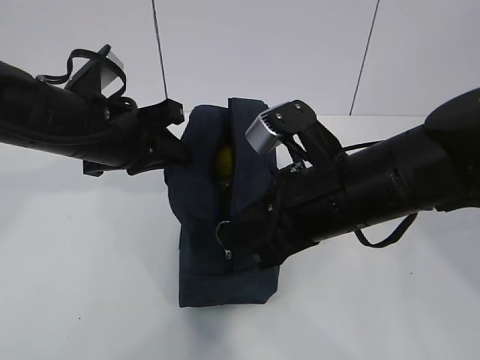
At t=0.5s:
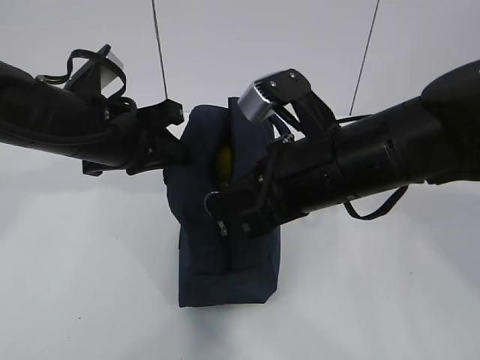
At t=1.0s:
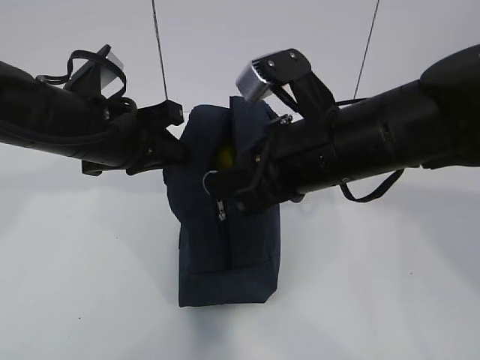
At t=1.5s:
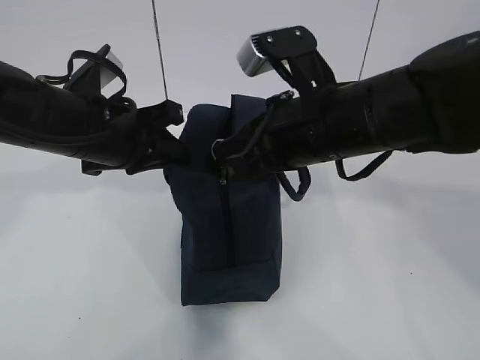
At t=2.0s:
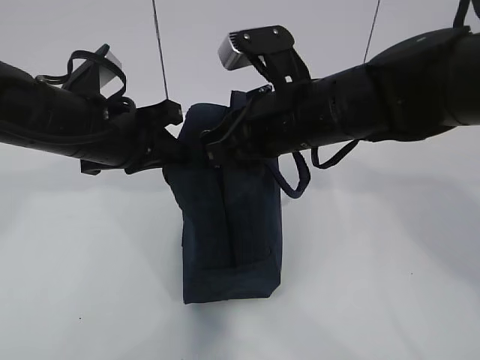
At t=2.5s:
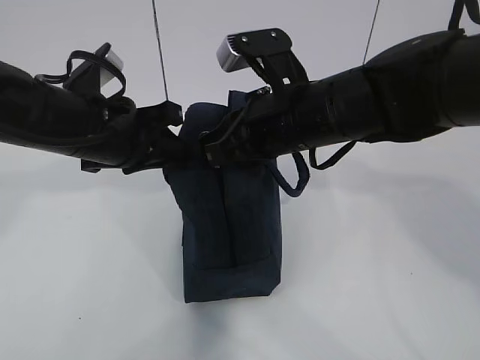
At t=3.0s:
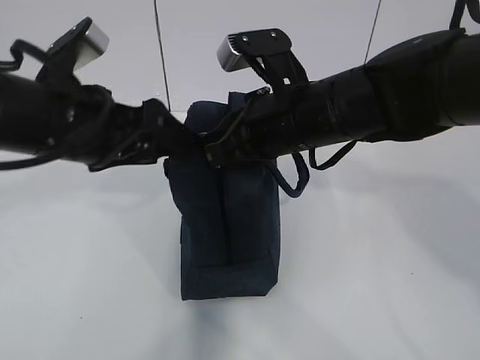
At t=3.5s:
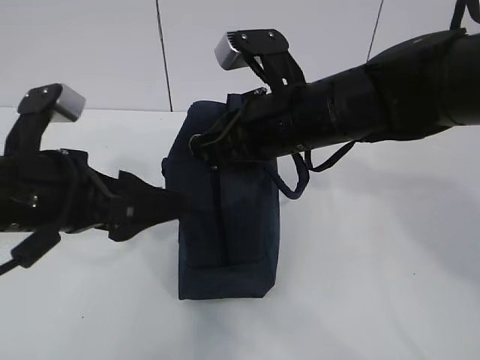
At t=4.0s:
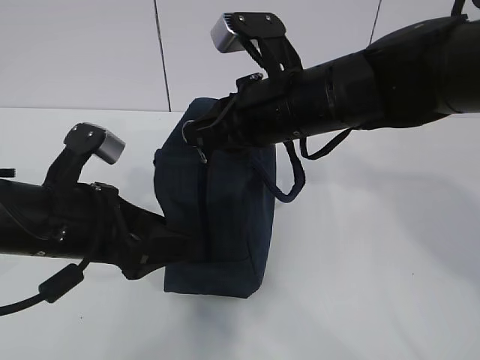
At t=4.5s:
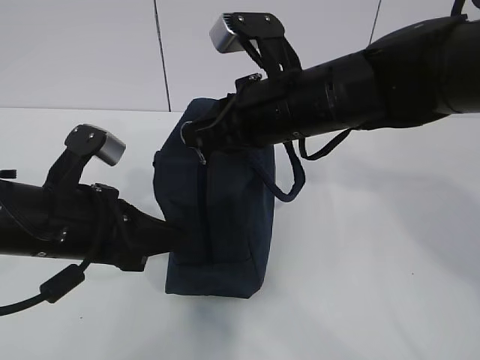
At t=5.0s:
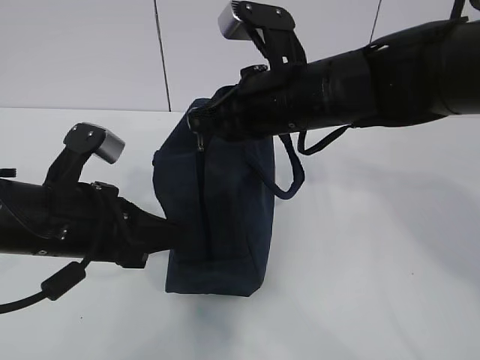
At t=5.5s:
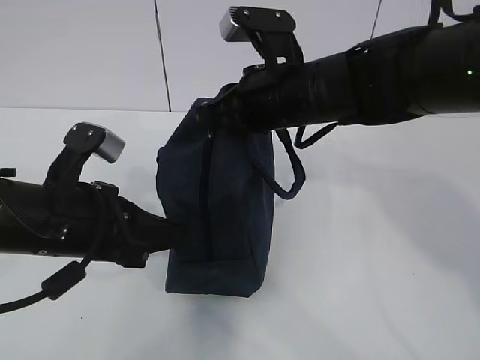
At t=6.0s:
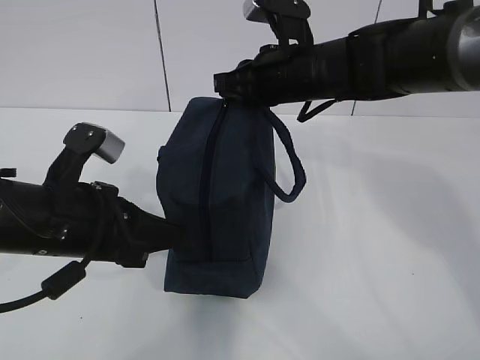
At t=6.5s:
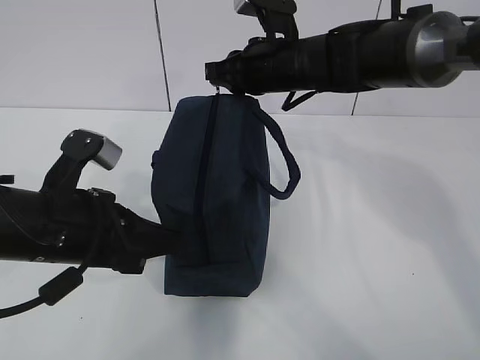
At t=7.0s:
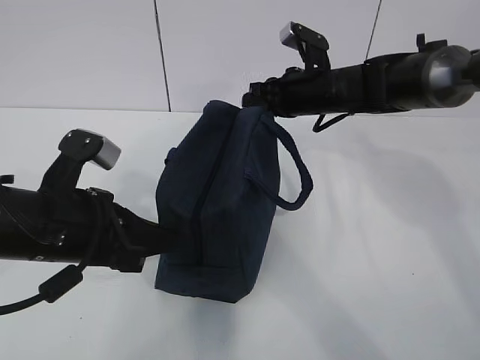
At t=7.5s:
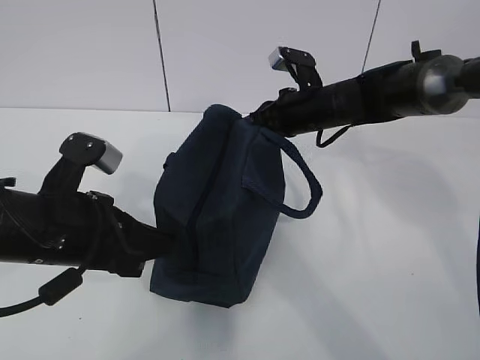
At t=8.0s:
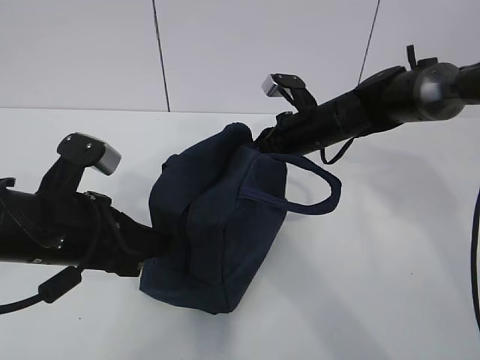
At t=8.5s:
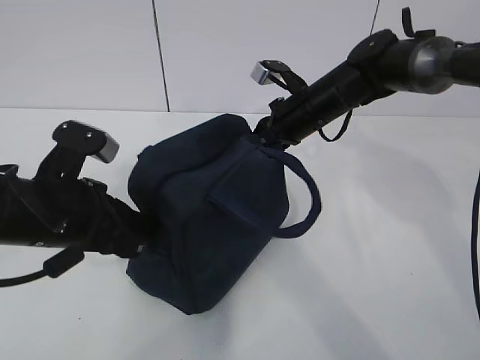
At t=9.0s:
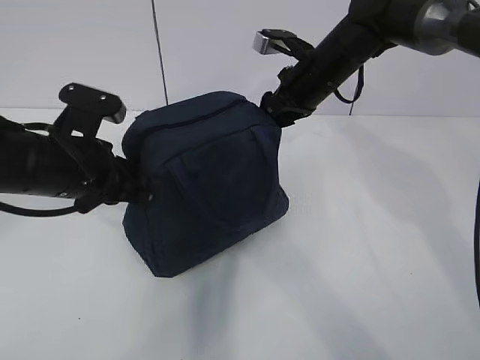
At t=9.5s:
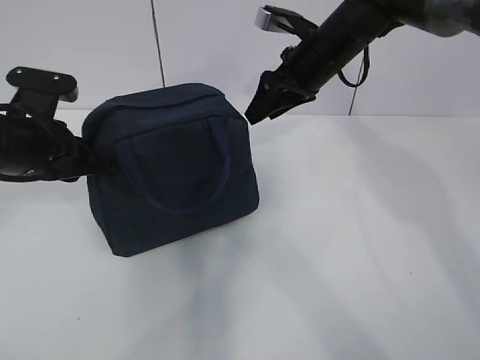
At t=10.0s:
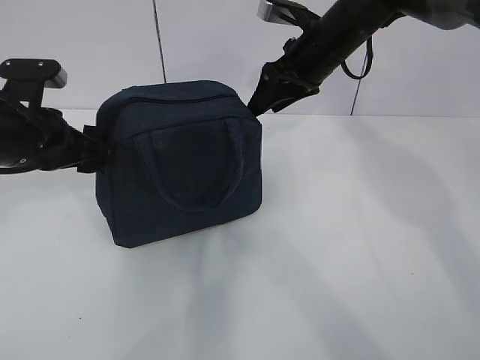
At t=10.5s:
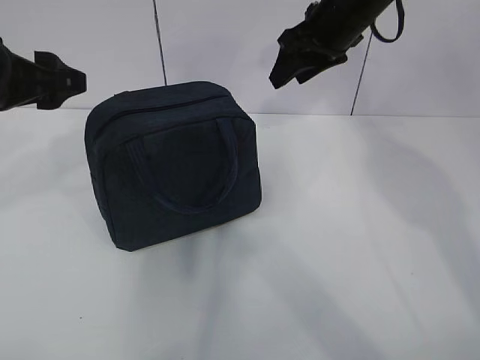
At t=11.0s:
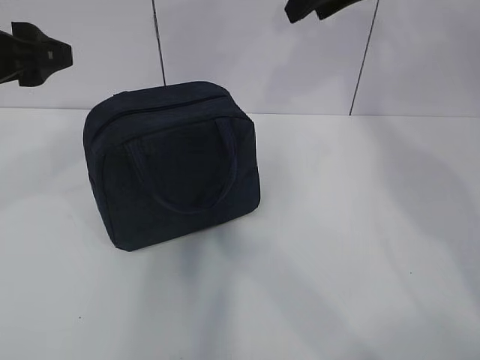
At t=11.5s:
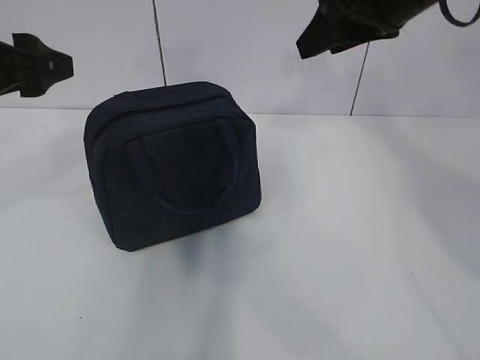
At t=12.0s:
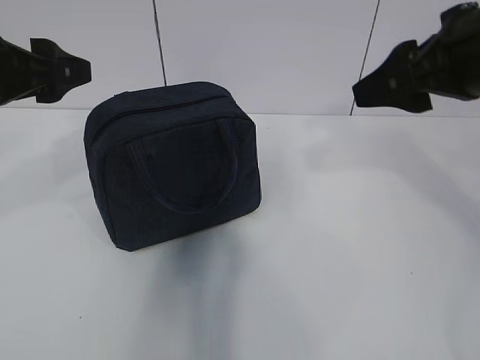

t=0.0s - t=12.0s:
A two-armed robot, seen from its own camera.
t=0.0s - t=2.0s: The right gripper is displaced forward by roughly 5 cm.
t=2.0s - t=4.0s: The left gripper is displaced backward by some 10 cm, and opens its fingers.
t=4.0s - t=6.0s: The right gripper shifts approximately 10 cm forward; the left gripper closes its fingers.
t=6.0s - t=8.0s: The right gripper heads downward and forward, covering approximately 10 cm.
t=8.0s - t=10.0s: The right gripper shifts some 10 cm upward, and opens up; the left gripper shifts some 10 cm forward and to the left, and opens.
t=10.0s - t=12.0s: The left gripper is displaced upward by approximately 10 cm. The right gripper heads backward and upward, covering roughly 20 cm.

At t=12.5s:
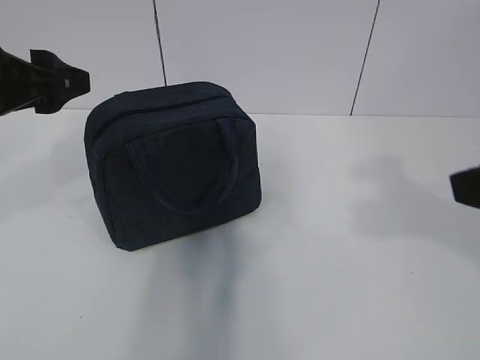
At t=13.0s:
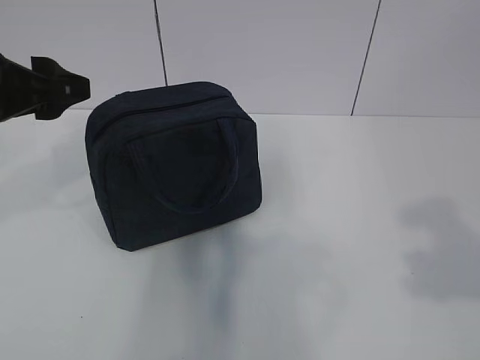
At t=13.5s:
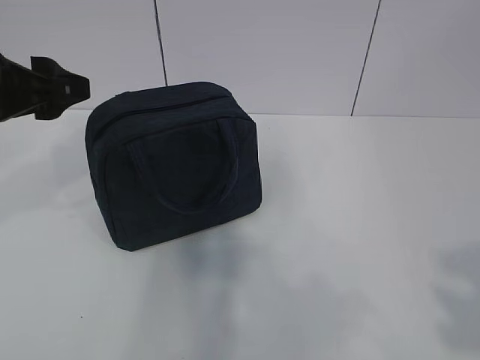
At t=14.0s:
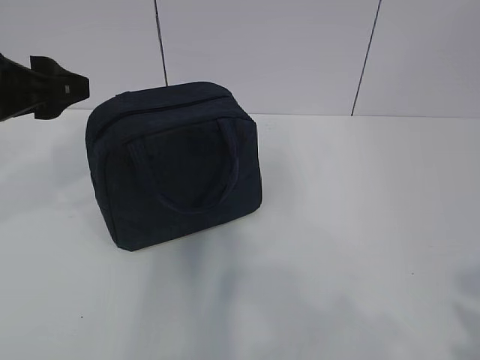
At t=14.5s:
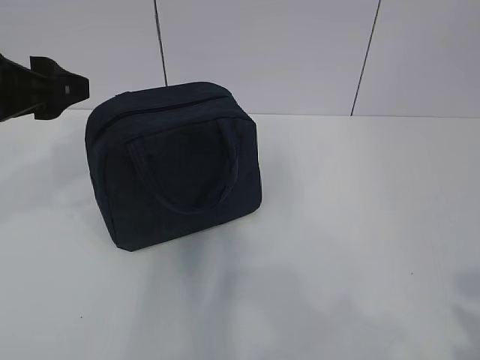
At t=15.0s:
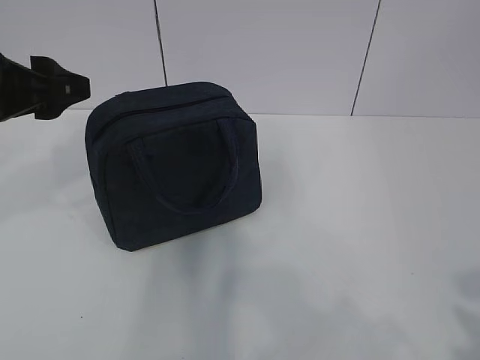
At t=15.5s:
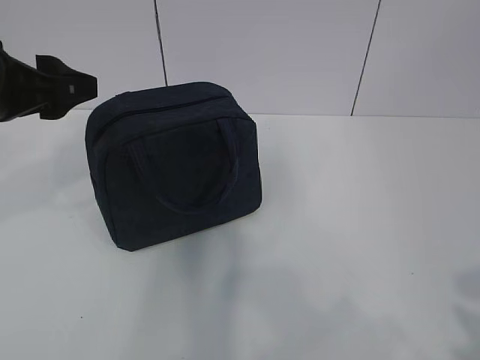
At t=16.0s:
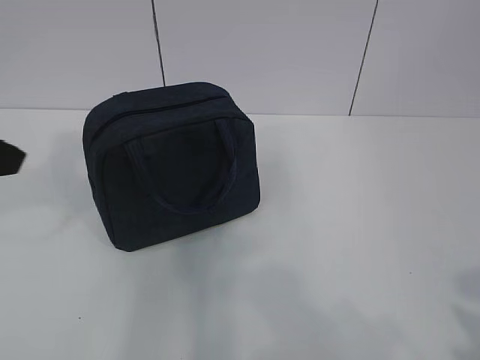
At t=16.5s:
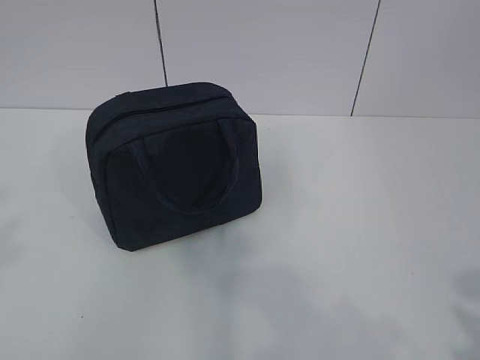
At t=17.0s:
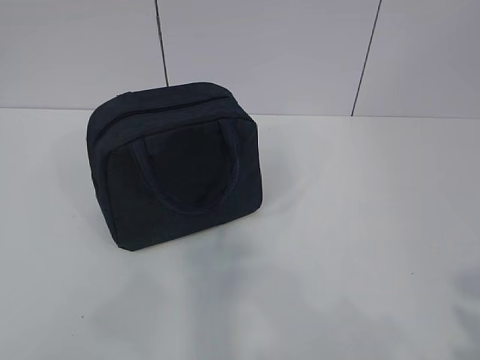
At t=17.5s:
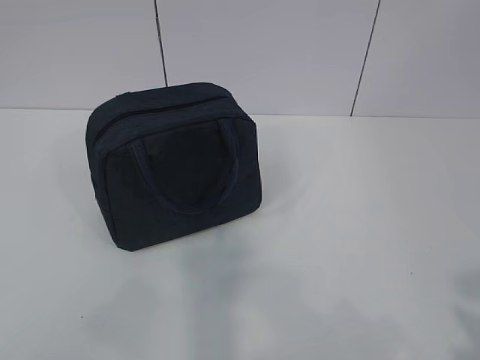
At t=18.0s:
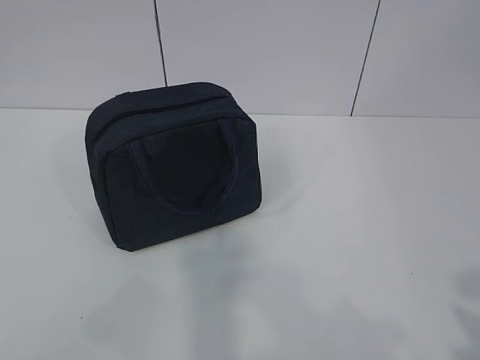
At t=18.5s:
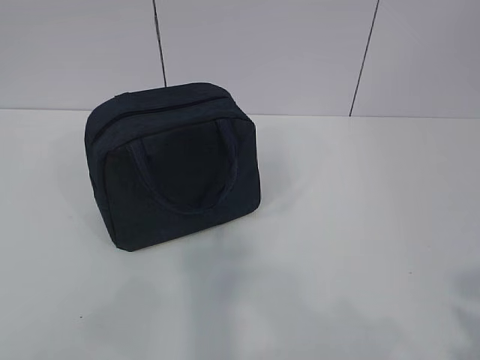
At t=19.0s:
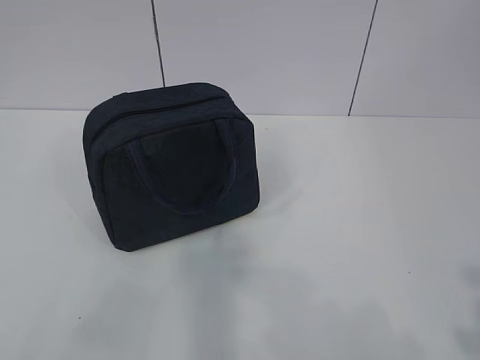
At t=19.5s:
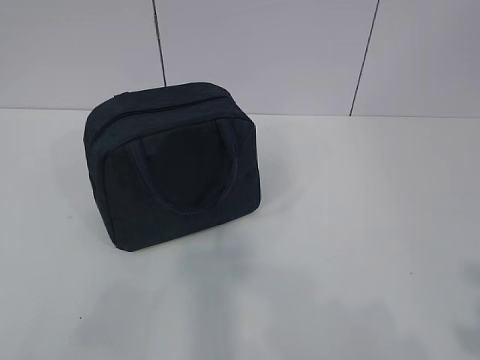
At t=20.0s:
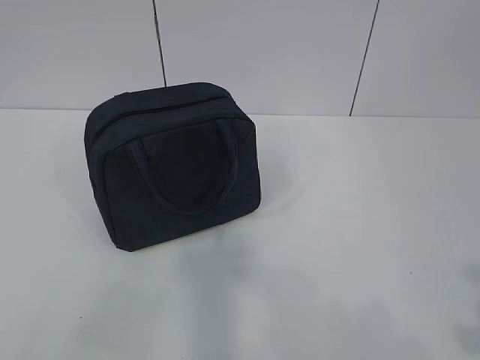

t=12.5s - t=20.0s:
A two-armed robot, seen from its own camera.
t=12.5s - t=14.5s: The right gripper heads backward, covering some 15 cm.
t=14.5s - t=16.5s: The left gripper moves backward and to the left, about 25 cm.

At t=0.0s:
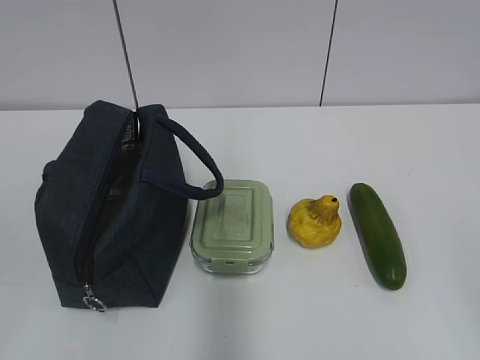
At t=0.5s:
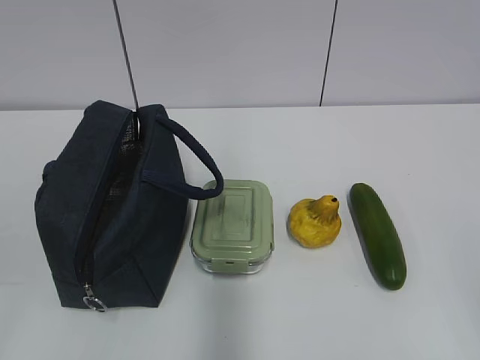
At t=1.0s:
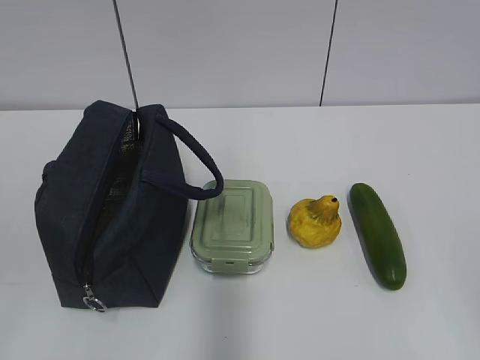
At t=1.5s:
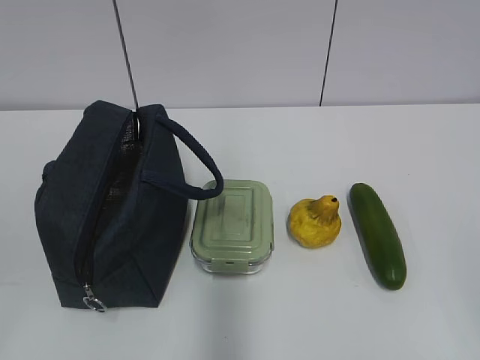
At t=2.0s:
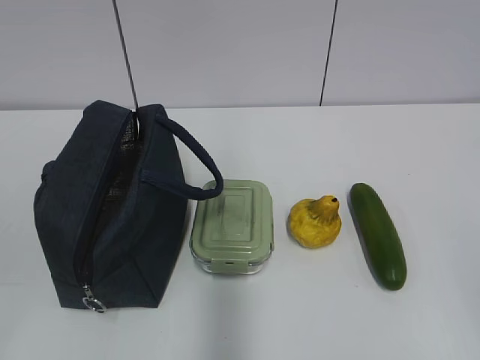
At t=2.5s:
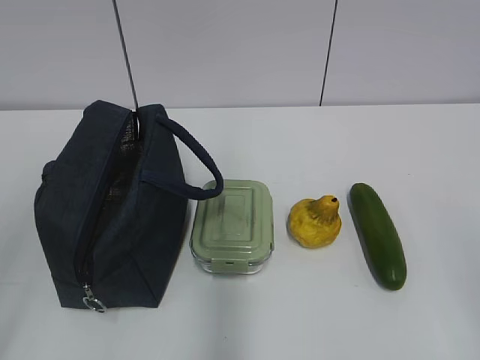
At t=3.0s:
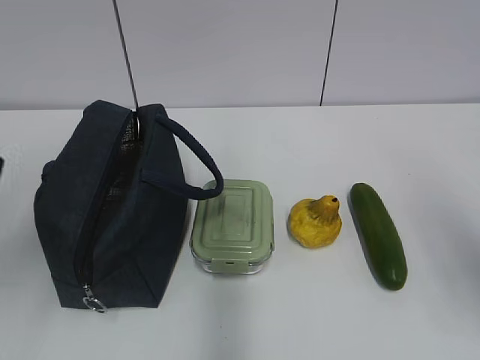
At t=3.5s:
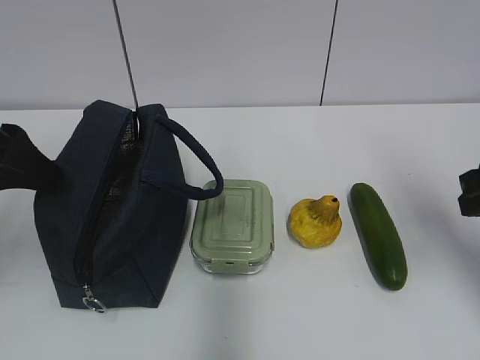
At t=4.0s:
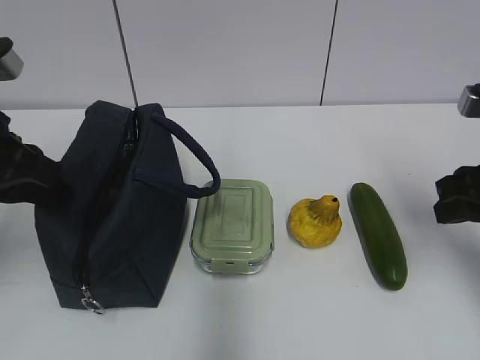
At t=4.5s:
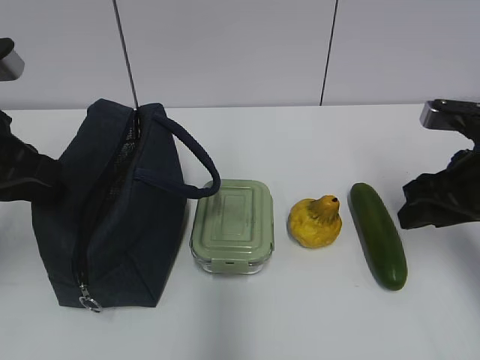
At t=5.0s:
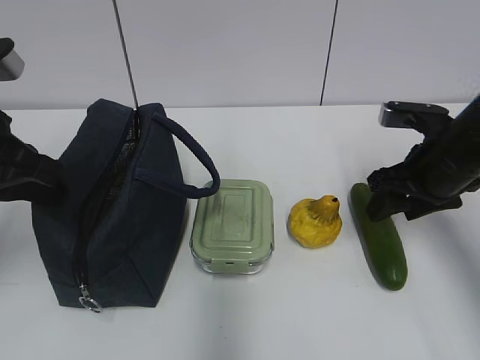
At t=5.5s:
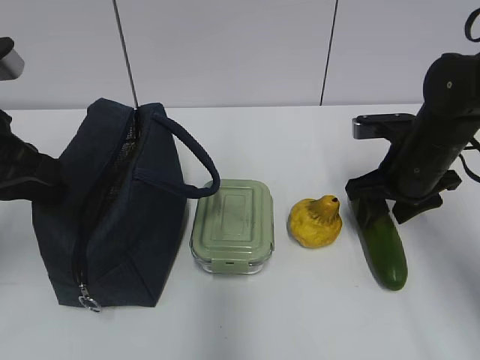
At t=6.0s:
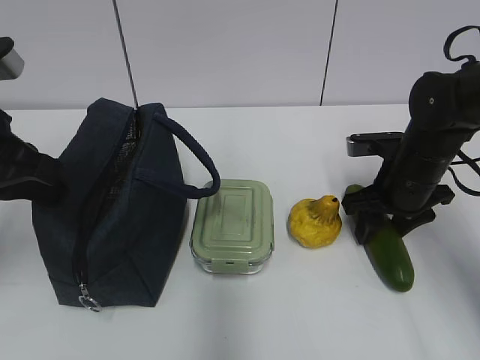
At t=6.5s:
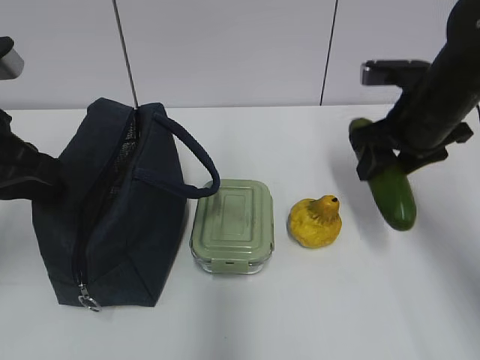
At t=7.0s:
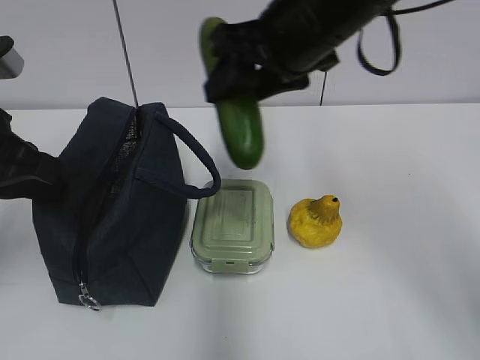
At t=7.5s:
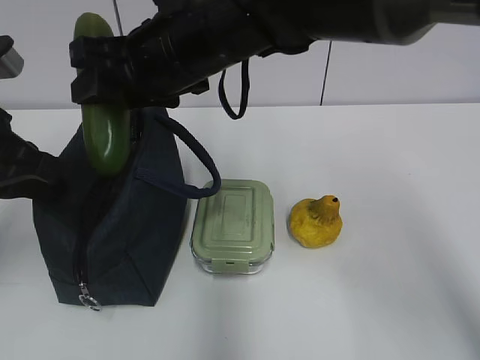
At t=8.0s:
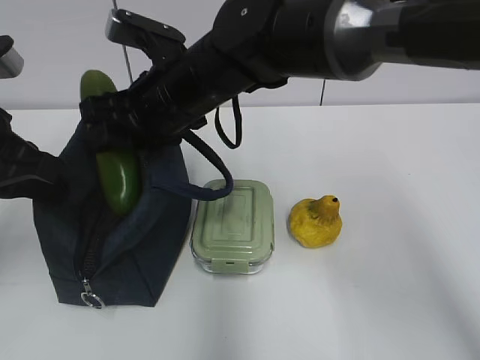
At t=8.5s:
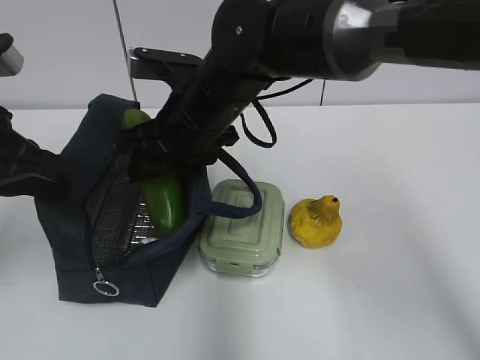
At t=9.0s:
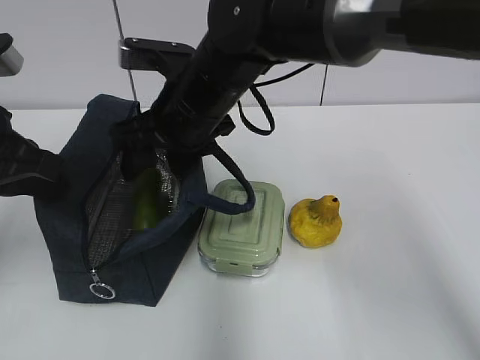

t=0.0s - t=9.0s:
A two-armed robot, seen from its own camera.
Step, t=0.0s - t=6.0s: Grab the cucumber with your right hand.
t=2.0s - t=4.5s: The two grippers go about 30 cm forward. The left gripper closes.
t=4.5s - t=7.0s: The right gripper is displaced to the left and upward by some 25 cm.
t=7.0s - t=9.0s: The right gripper moves to the left and downward, roughly 10 cm.
